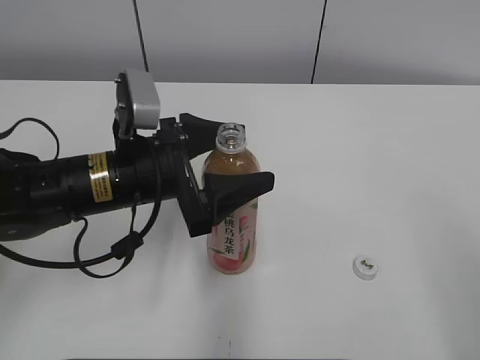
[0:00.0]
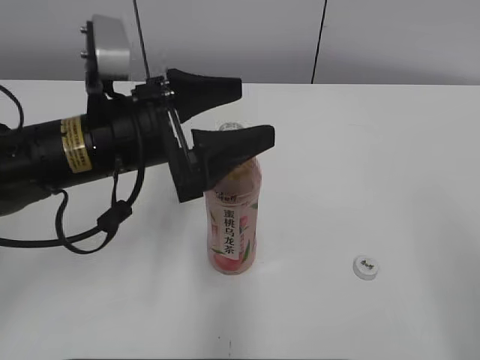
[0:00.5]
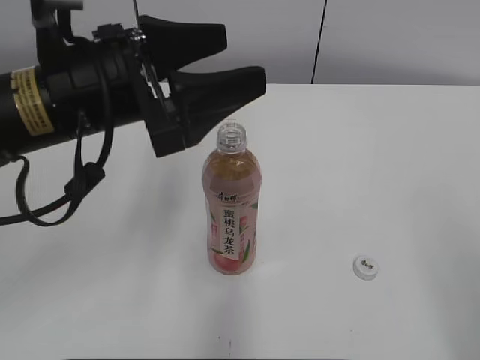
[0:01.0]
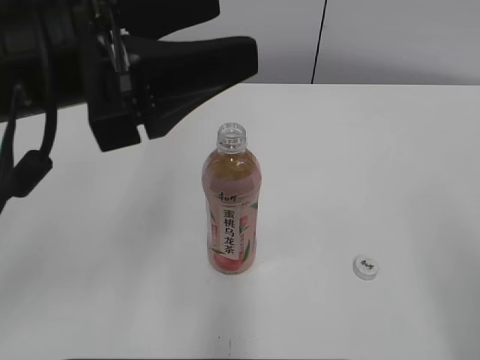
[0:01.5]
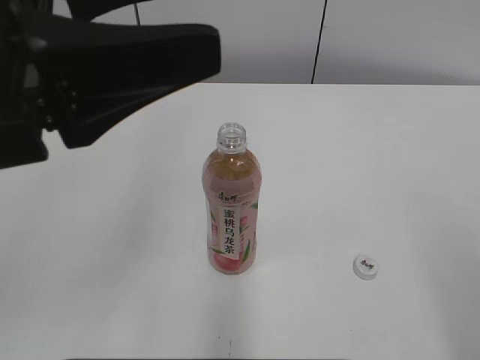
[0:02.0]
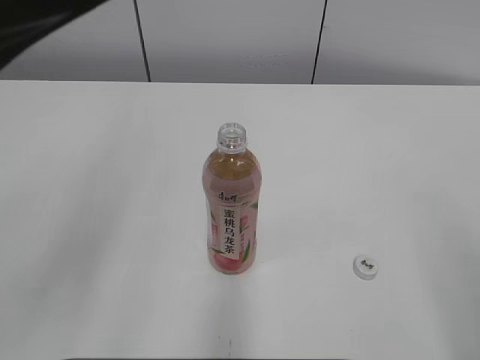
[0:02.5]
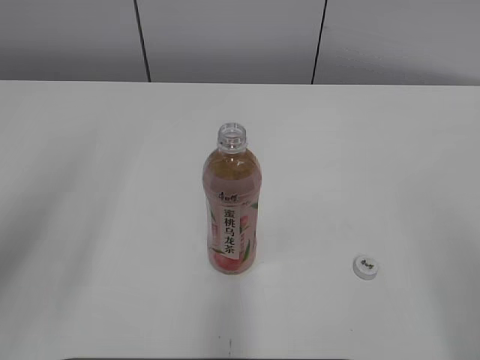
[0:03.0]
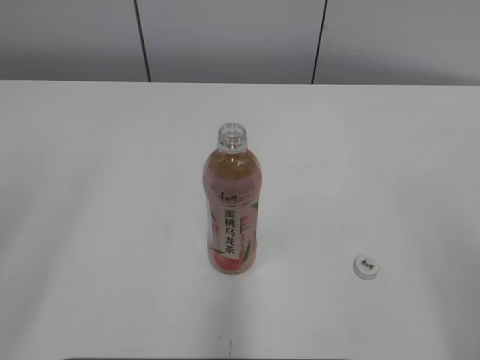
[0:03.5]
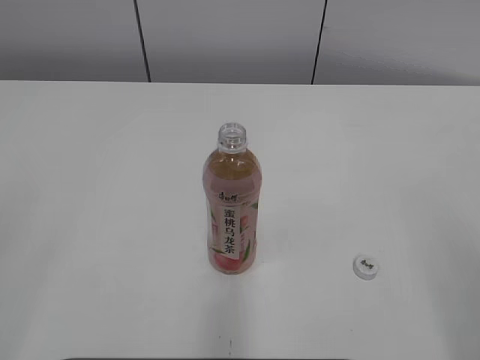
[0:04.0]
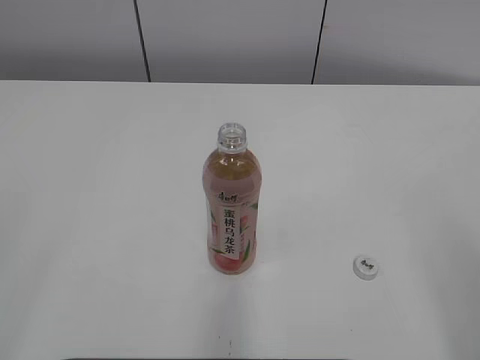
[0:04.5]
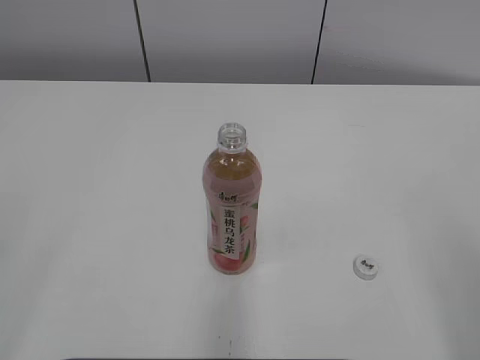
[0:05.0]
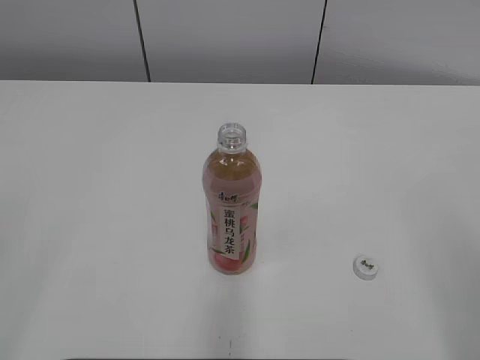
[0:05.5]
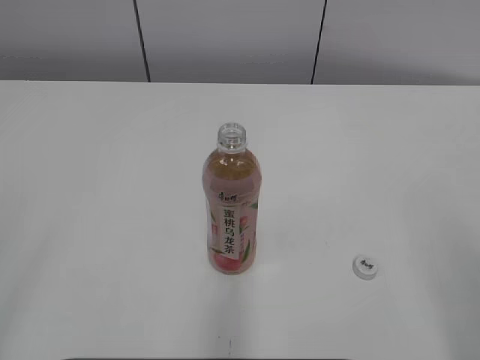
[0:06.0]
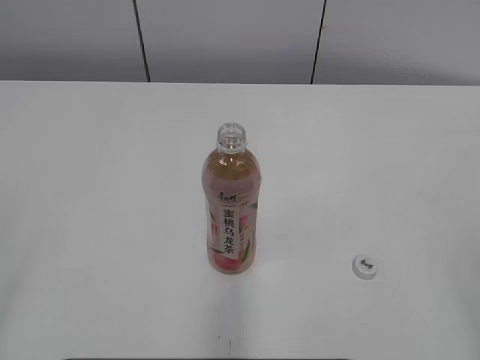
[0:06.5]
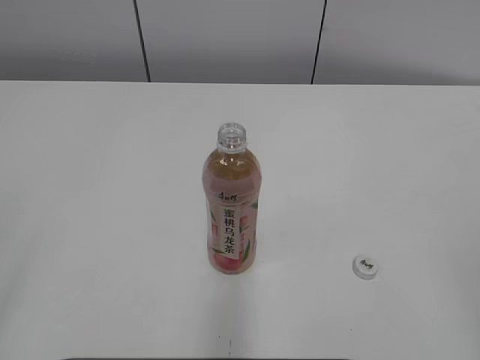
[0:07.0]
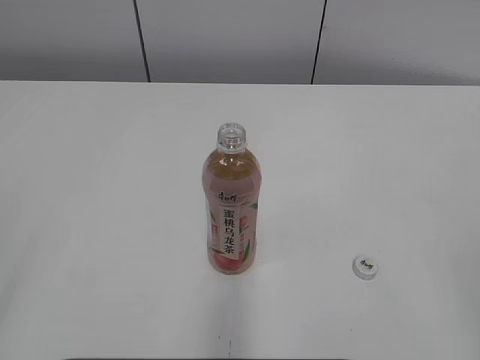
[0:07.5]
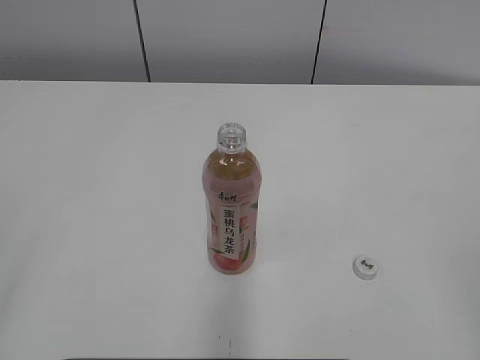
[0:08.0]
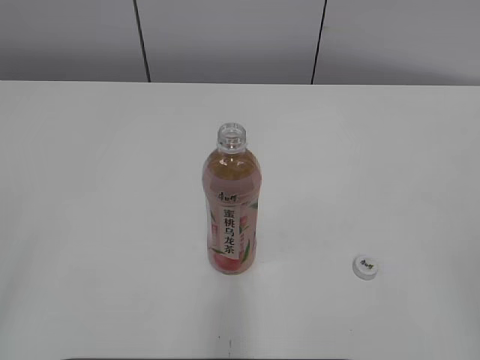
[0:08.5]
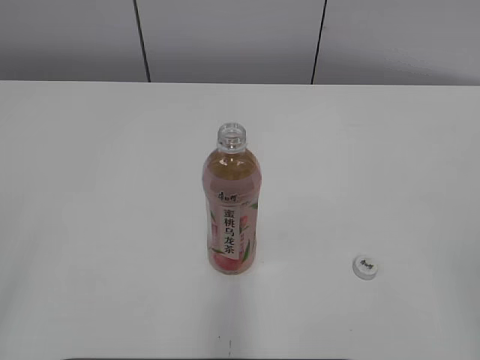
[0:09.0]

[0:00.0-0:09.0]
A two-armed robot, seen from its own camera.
0:00.0 to 0:02.0: The left gripper travels upward and backward by approximately 20 cm.
0:02.0 to 0:04.5: The left gripper moves backward and to the left, about 25 cm.
0:07.0 to 0:09.0: The two grippers keep their place.

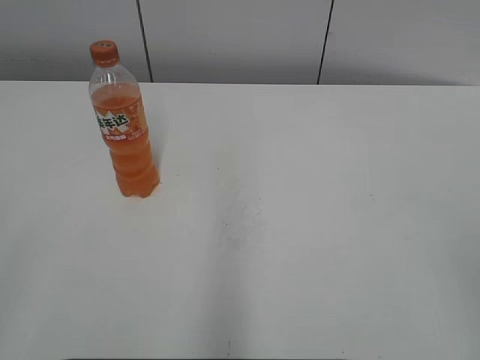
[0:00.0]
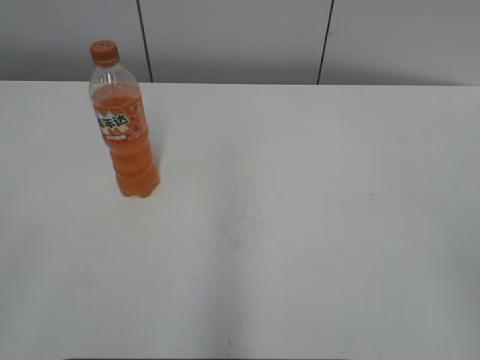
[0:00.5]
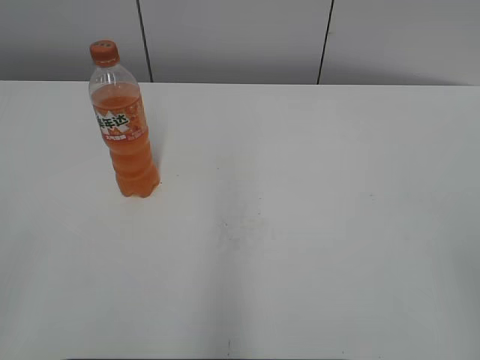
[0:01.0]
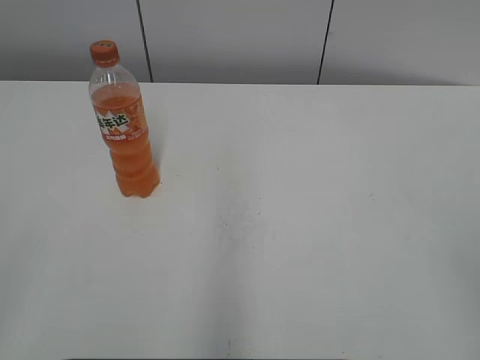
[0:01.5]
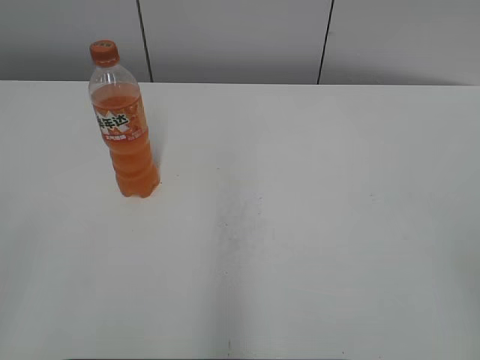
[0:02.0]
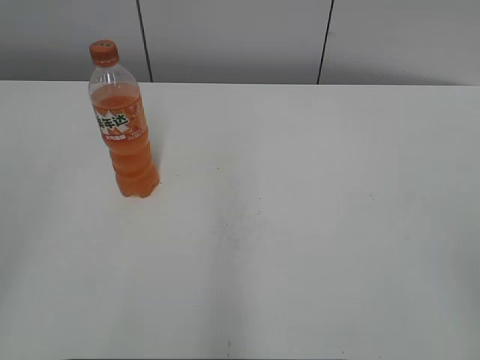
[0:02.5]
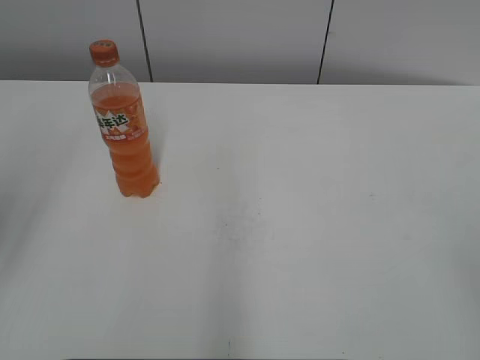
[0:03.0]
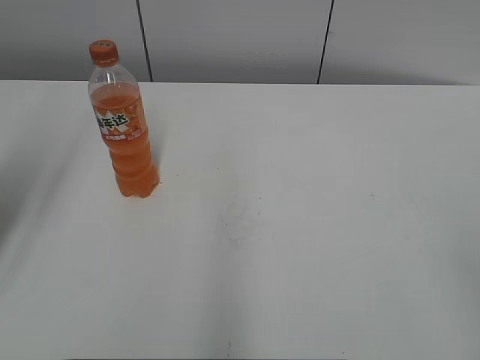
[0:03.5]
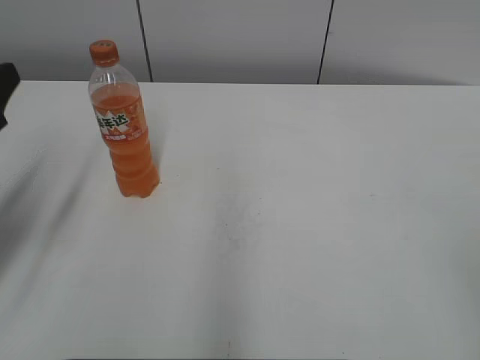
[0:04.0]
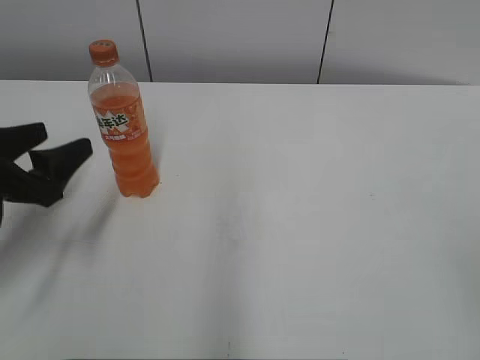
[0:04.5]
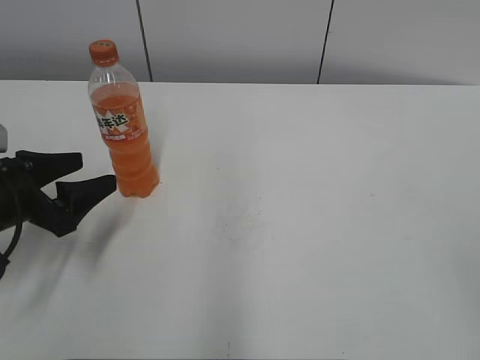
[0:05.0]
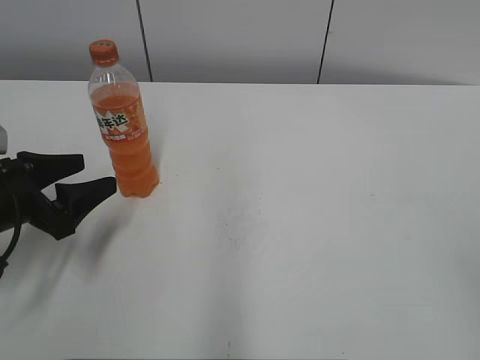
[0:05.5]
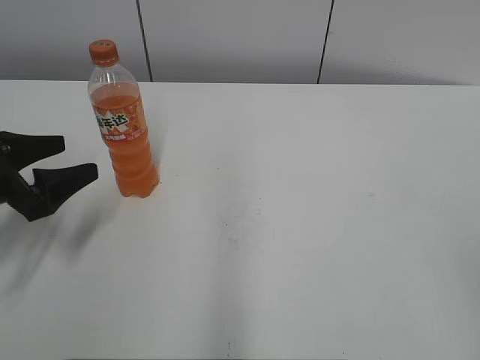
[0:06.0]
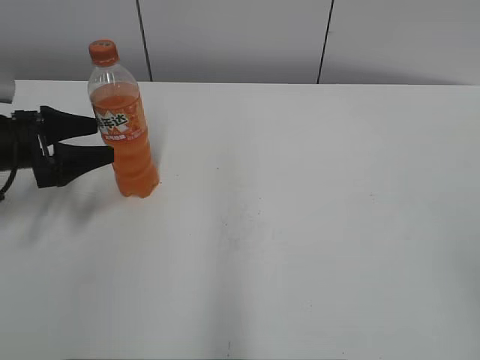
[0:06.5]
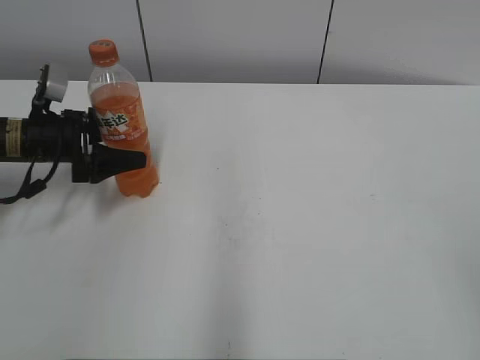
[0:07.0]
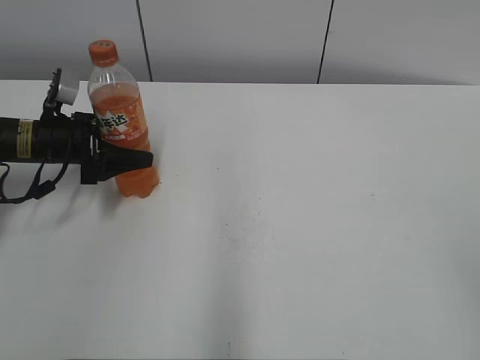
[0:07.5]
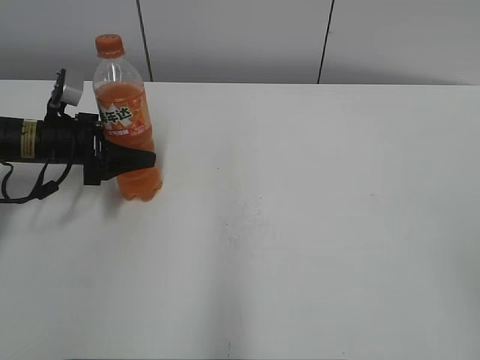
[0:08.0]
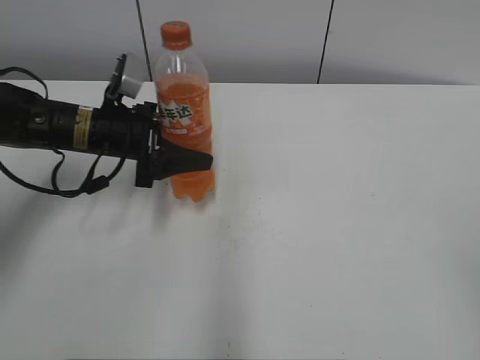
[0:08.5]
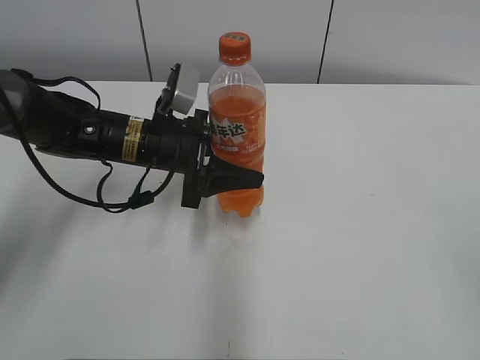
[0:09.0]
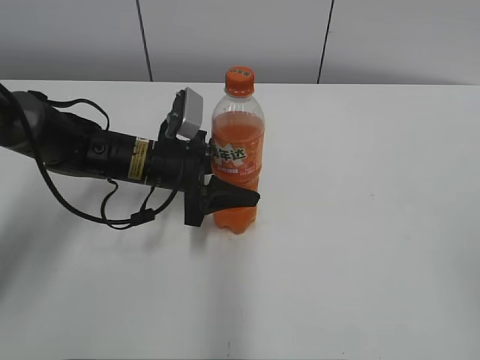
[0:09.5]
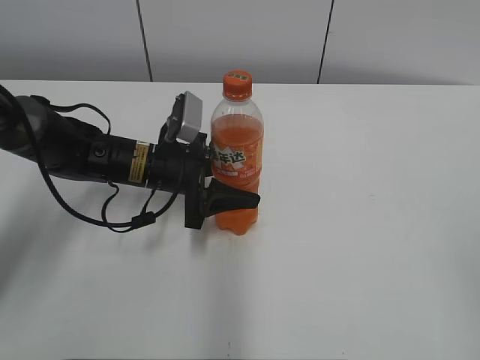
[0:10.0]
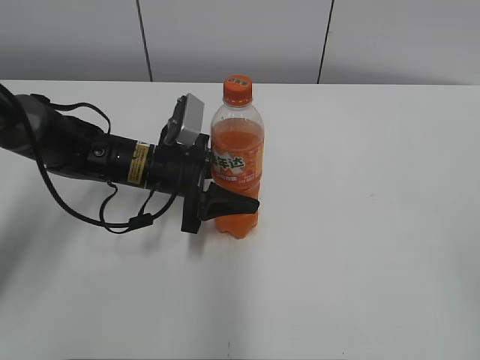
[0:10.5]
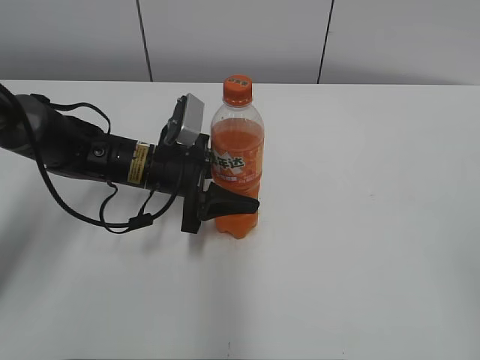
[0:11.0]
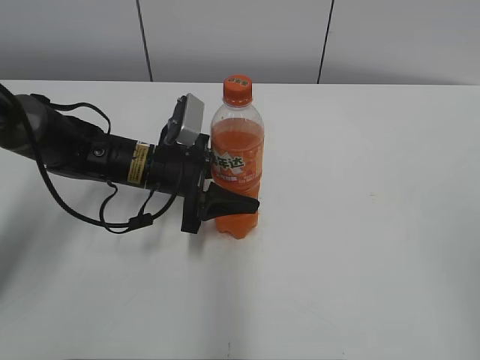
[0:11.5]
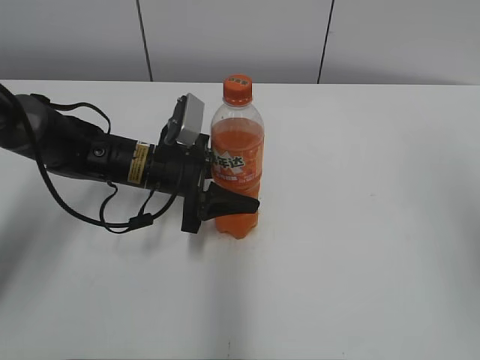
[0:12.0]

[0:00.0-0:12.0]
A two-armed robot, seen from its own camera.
Step, 0:00.0 to 0:07.5: Grab the Mirinda with the left hand.
Step, 0:08.0 to 0:10.0: Move the Mirinda from left to right.
0:02.0 to 0:04.0: The left gripper goes roughly 25 cm forward.
0:04.0 to 0:06.0: The left gripper goes some 10 cm downward.
0:06.0 to 0:08.0: The left gripper shifts some 10 cm forward, and closes up.
0:08.0 to 0:10.0: The left gripper goes some 15 cm to the right.
0:10.0 to 0:12.0: The right gripper shifts about 15 cm forward and upward.

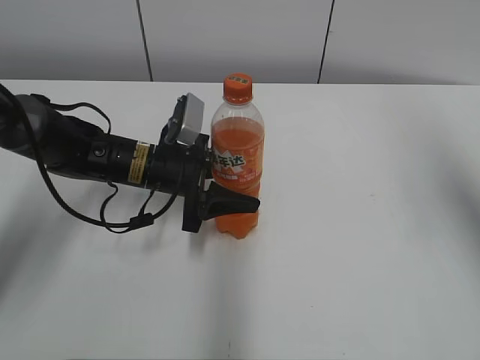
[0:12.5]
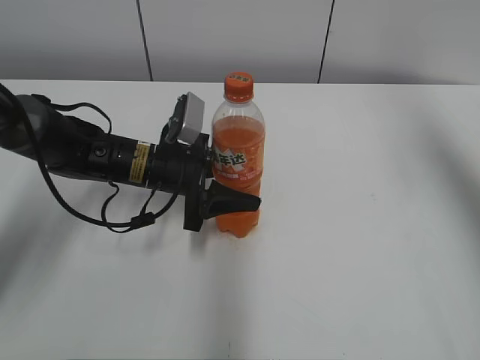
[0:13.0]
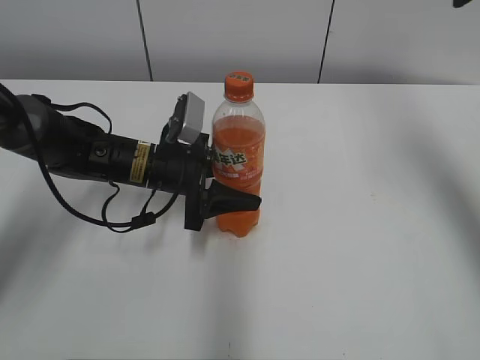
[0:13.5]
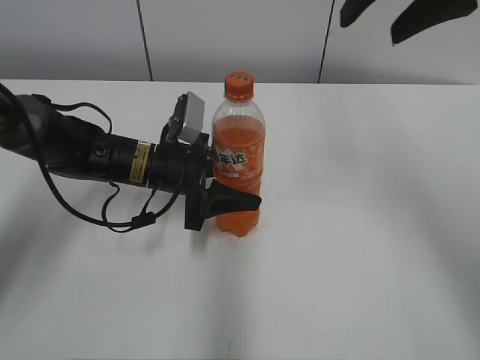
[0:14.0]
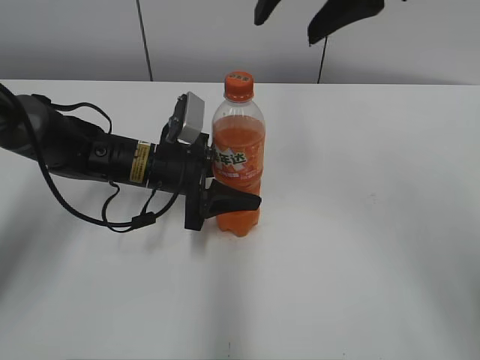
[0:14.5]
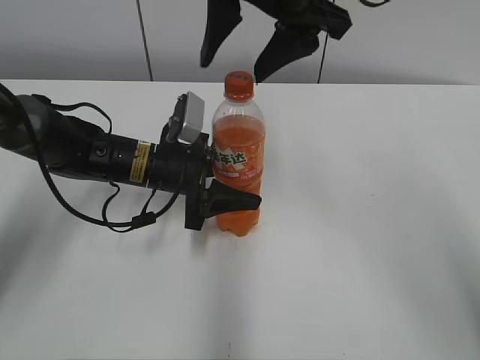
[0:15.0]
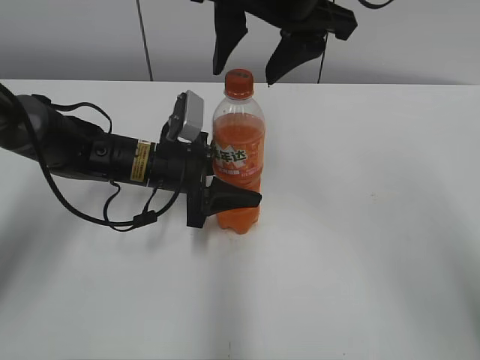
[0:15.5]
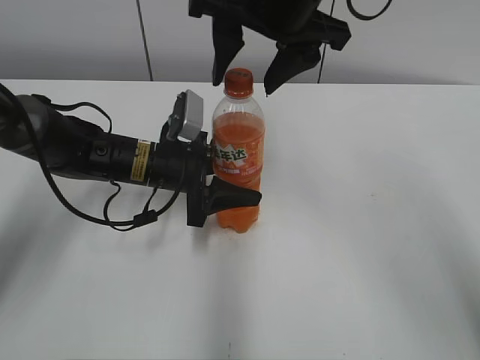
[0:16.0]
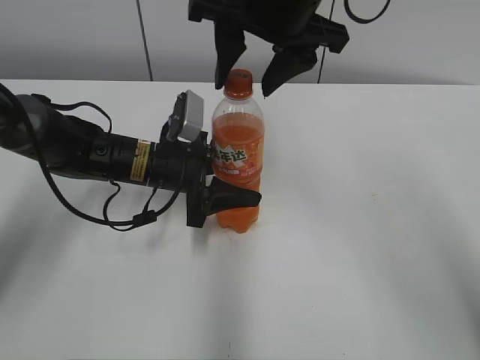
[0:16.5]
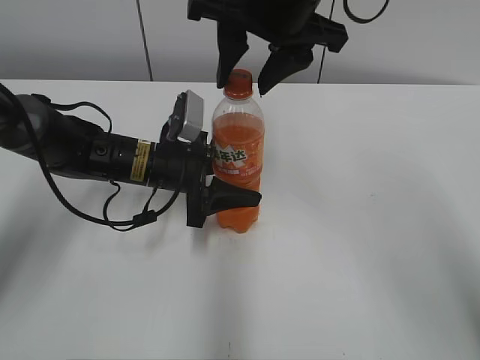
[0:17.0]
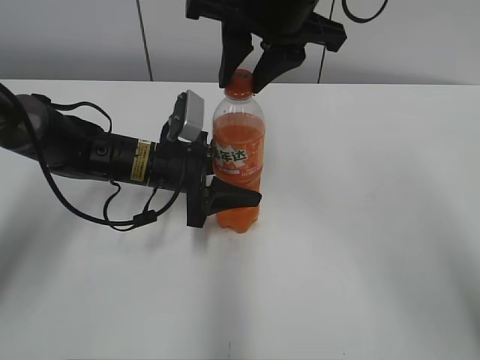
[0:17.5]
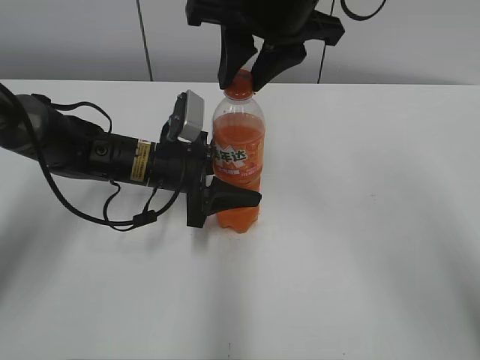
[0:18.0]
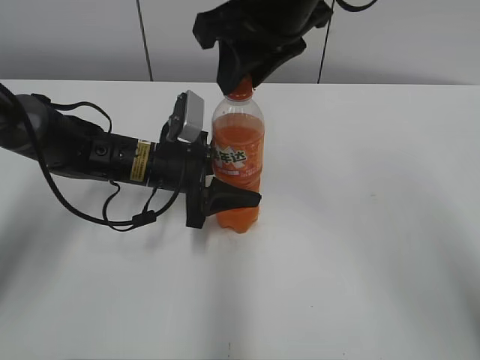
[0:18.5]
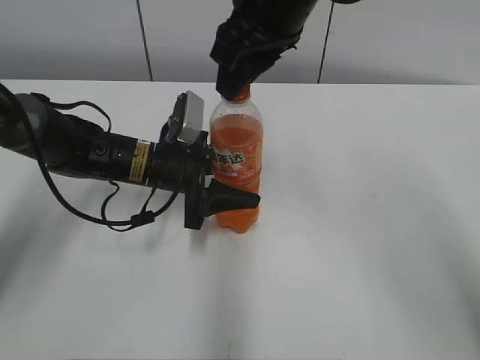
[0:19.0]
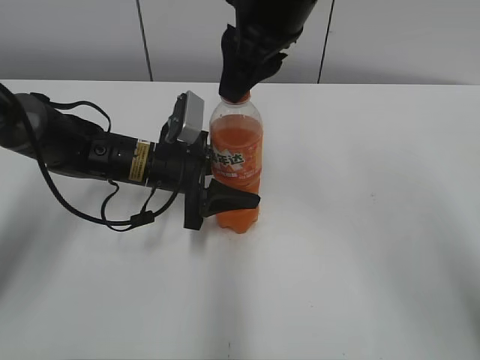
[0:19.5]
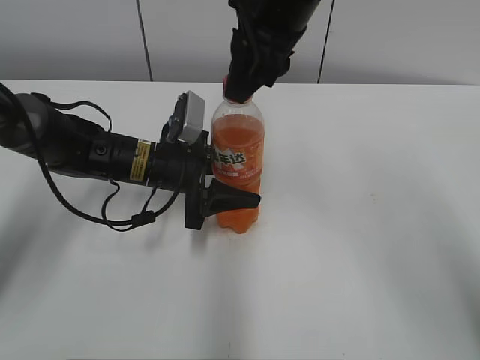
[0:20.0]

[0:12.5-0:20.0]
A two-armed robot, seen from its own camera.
0:12.5 to 0:14.5: The right gripper goes about 20 cm to the left.
0:14.5 to 0:16.5: The right gripper moves downward and to the left, about 10 cm.
0:16.5 to 0:18.0: The right gripper closes its fingers.
